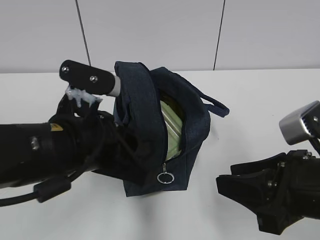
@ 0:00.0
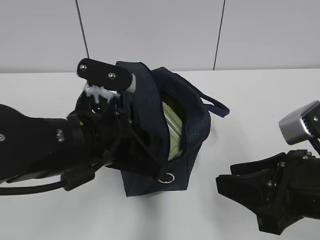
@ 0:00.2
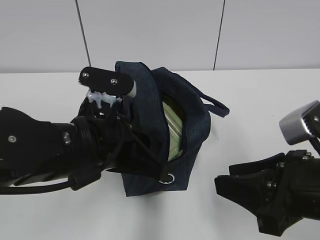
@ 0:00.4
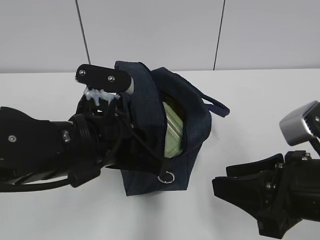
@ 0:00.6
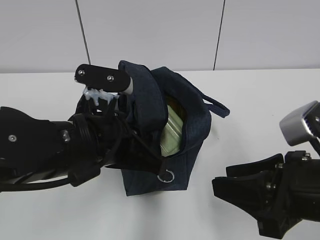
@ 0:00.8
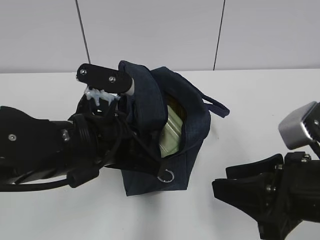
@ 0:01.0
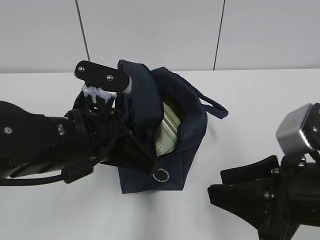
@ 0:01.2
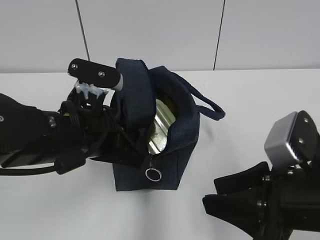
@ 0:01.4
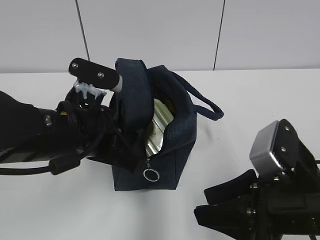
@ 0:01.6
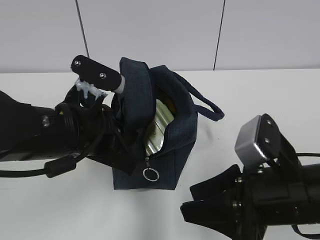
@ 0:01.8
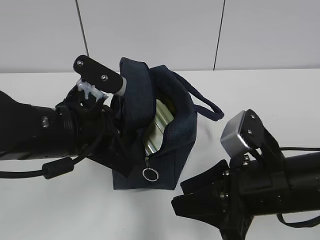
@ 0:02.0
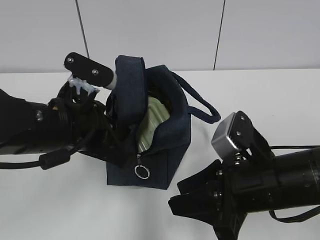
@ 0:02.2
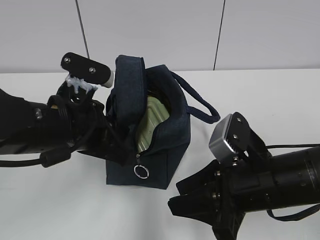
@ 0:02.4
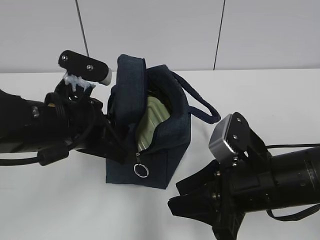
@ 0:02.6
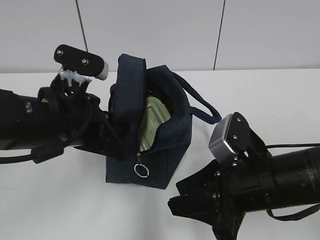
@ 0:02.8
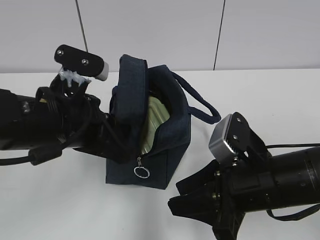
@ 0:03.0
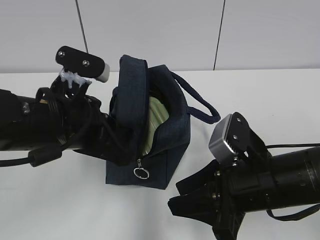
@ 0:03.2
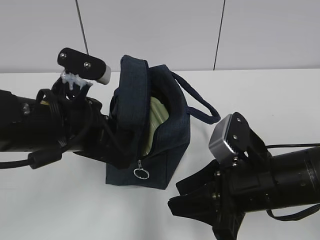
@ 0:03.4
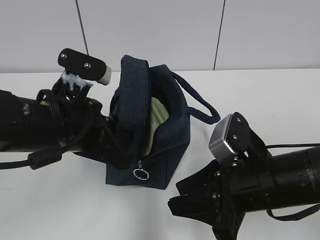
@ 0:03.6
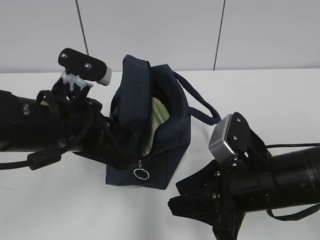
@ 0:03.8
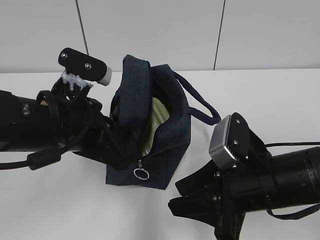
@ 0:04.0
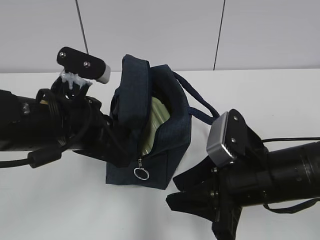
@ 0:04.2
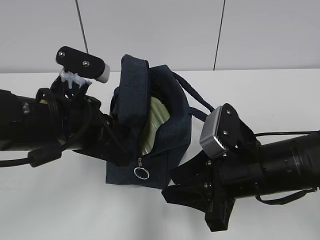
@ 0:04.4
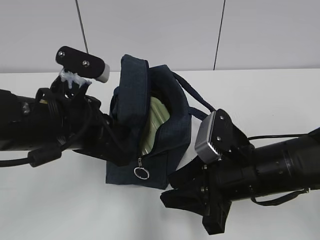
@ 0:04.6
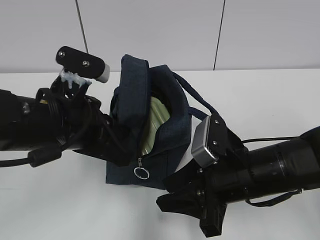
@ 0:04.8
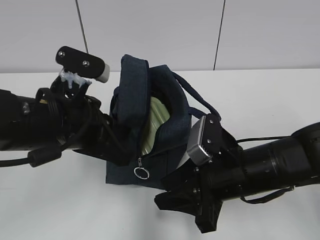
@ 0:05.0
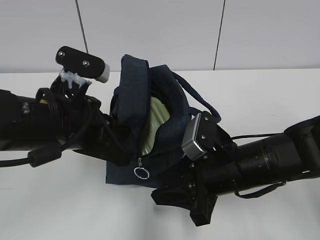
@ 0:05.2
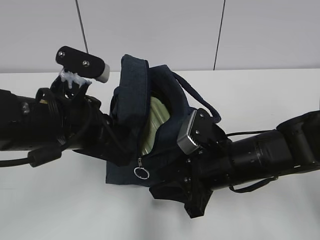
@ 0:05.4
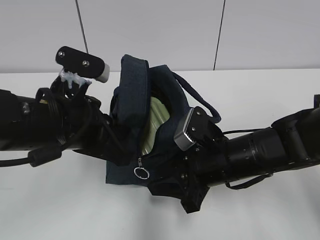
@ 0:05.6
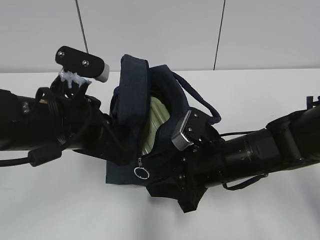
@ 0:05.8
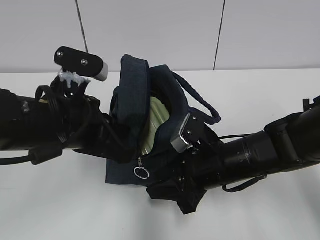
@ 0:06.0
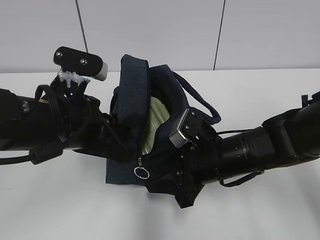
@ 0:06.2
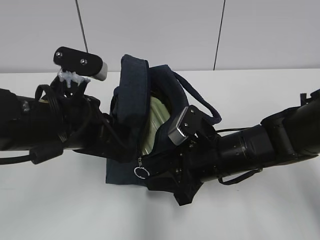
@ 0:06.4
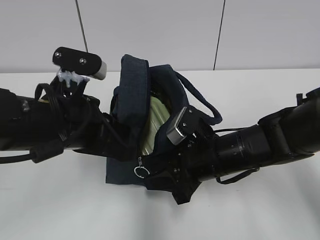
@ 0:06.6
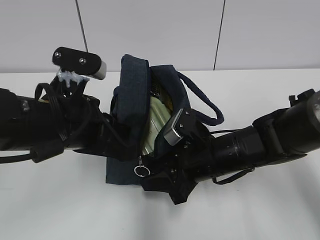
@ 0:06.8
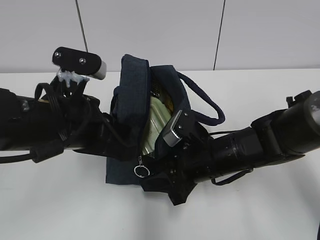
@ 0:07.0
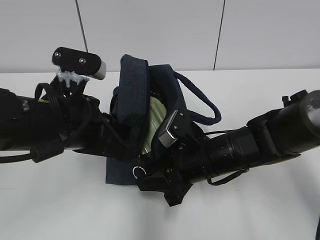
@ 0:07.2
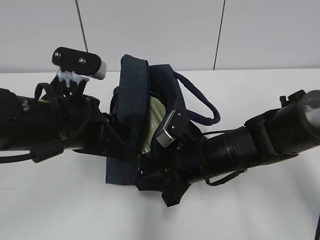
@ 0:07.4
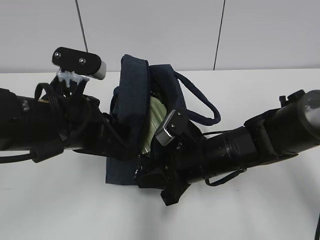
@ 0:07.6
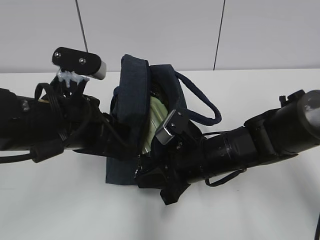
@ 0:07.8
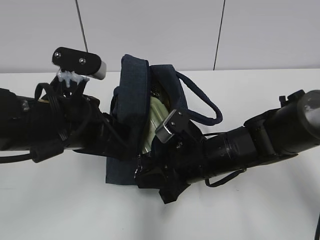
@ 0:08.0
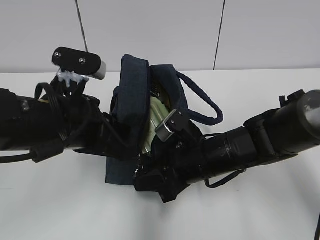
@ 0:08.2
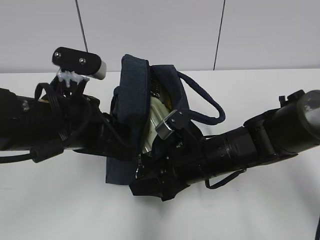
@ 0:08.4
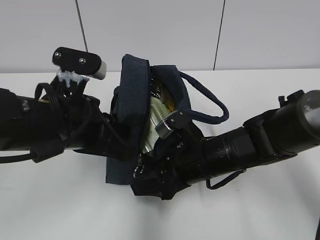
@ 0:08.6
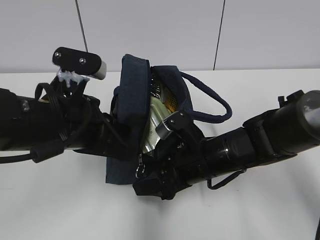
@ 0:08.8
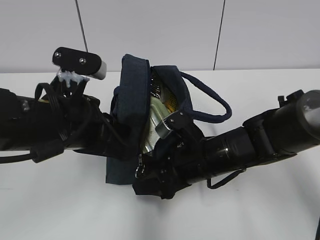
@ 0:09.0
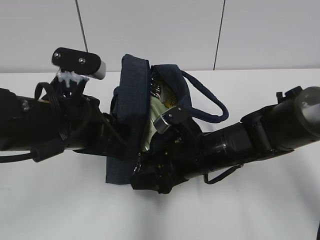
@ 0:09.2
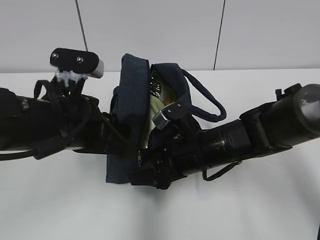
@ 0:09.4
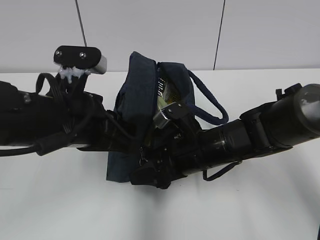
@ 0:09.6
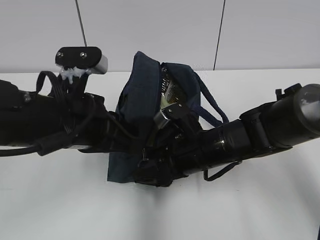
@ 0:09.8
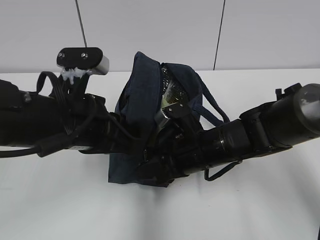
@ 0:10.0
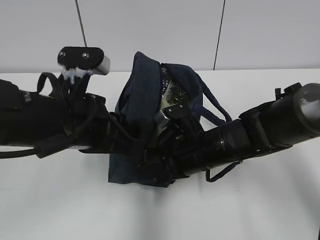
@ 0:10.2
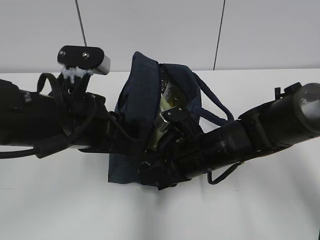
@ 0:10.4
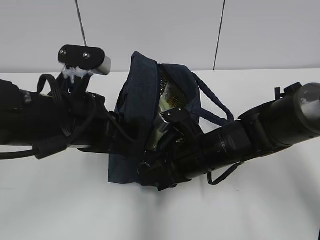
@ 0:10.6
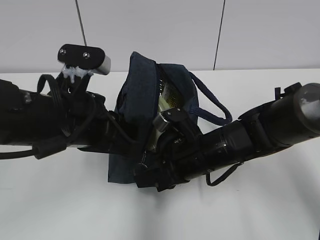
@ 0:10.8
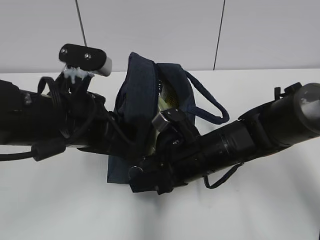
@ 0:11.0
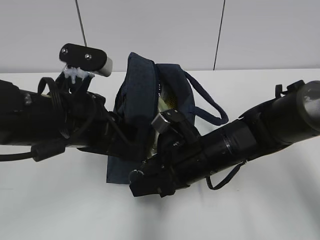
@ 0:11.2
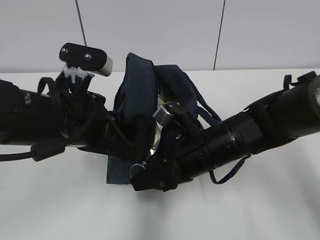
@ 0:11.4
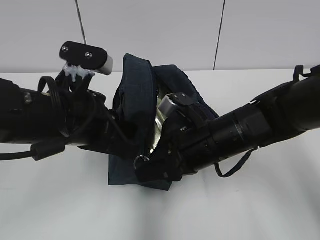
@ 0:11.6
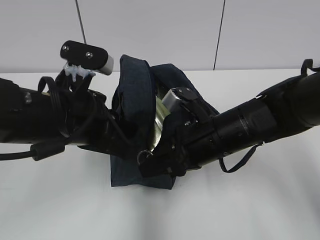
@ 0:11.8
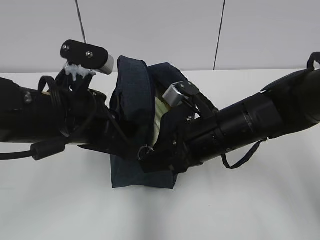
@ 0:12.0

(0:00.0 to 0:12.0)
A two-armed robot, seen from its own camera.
0:00.0 - 0:01.6: The left gripper closes its fingers.
0:01.6 - 0:03.0: The right gripper ends up approximately 5 cm from where it was.
0:03.0 - 0:04.4: There are only small adjustments of the grippers.
0:04.4 - 0:06.0: The right gripper heads forward and downward, covering roughly 5 cm.
0:06.0 - 0:07.6: The right gripper closes its fingers.
0:07.6 - 0:09.0: The right gripper opens.
0:09.0 - 0:10.4: The right gripper closes.
0:10.4 - 0:12.0: The right gripper shifts roughly 5 cm upward.

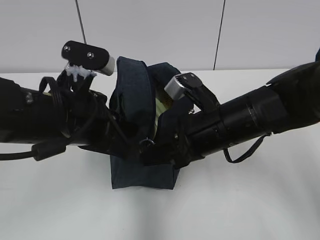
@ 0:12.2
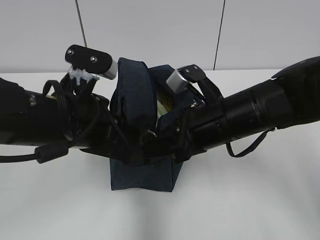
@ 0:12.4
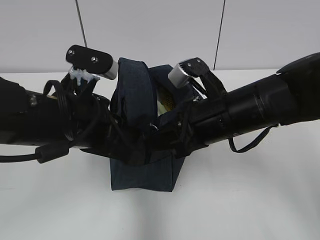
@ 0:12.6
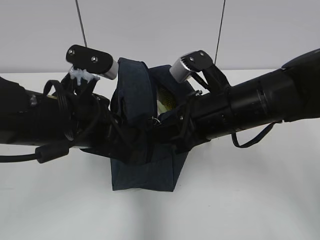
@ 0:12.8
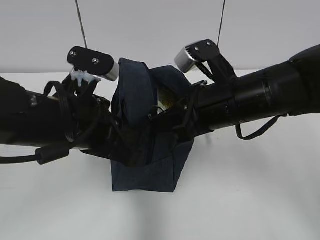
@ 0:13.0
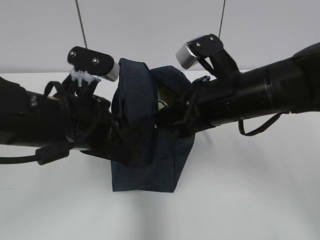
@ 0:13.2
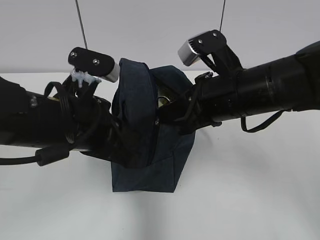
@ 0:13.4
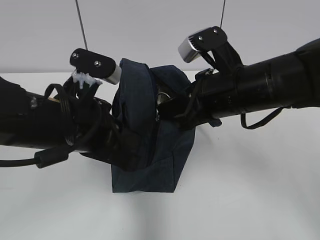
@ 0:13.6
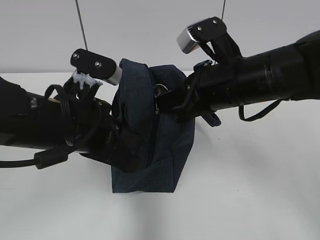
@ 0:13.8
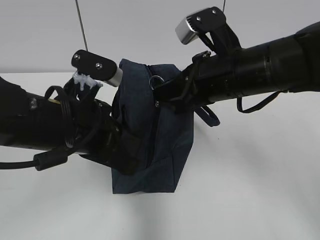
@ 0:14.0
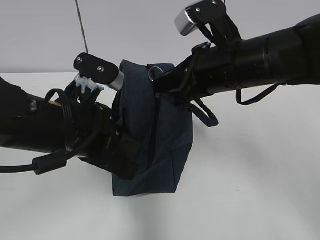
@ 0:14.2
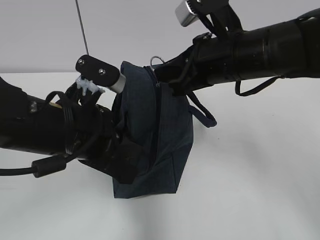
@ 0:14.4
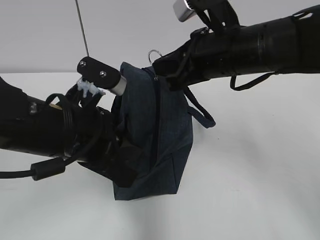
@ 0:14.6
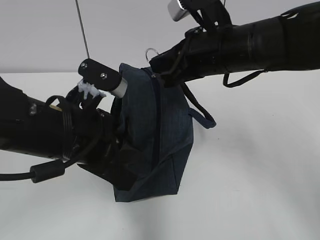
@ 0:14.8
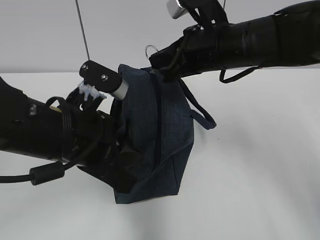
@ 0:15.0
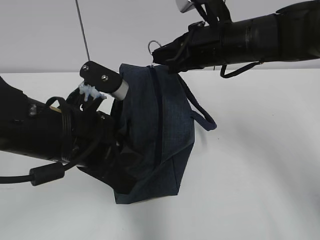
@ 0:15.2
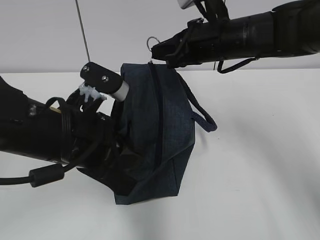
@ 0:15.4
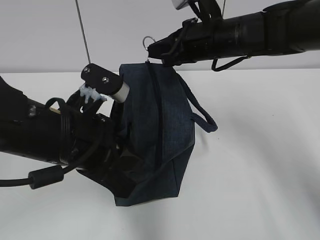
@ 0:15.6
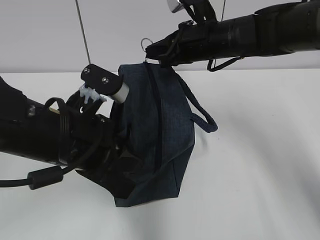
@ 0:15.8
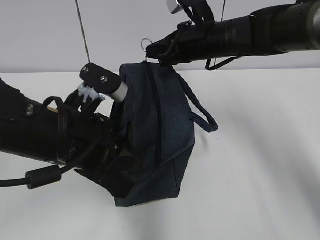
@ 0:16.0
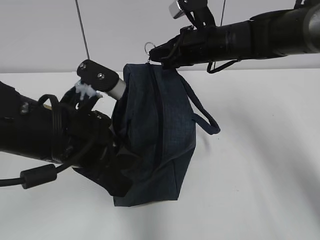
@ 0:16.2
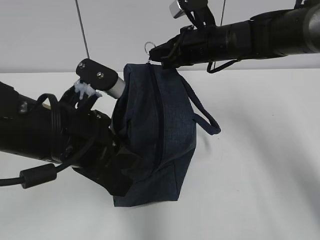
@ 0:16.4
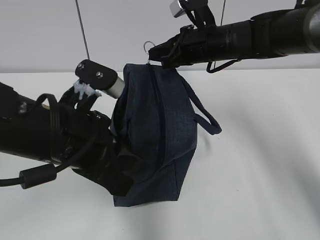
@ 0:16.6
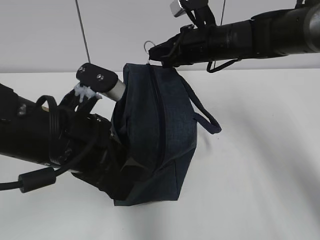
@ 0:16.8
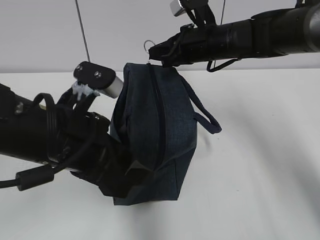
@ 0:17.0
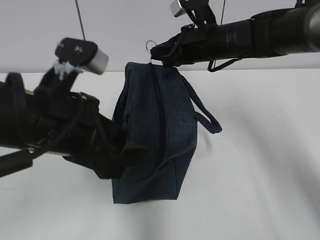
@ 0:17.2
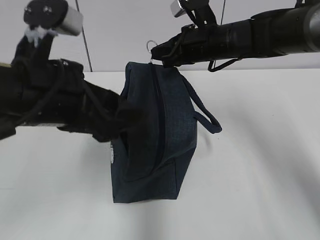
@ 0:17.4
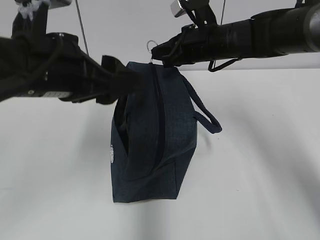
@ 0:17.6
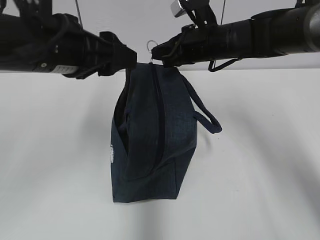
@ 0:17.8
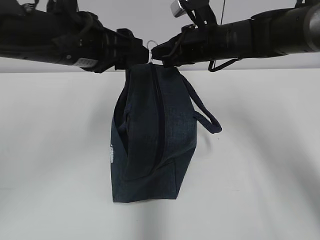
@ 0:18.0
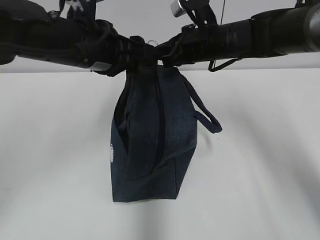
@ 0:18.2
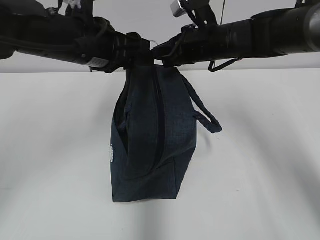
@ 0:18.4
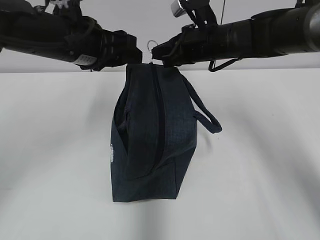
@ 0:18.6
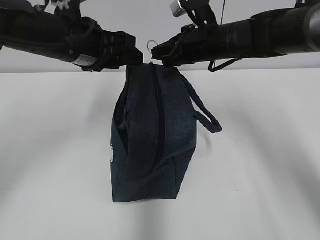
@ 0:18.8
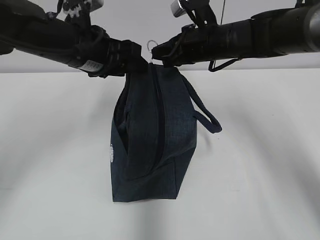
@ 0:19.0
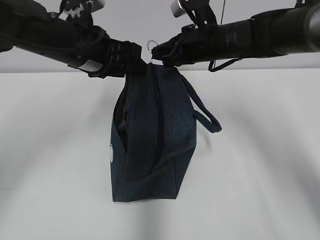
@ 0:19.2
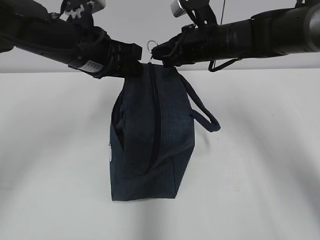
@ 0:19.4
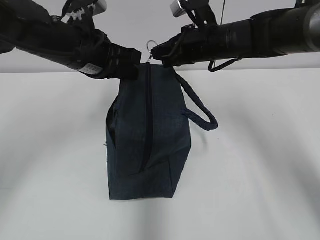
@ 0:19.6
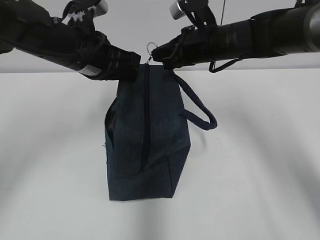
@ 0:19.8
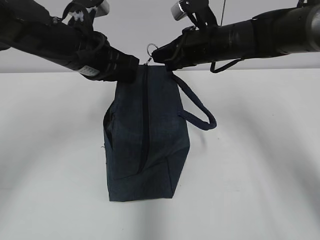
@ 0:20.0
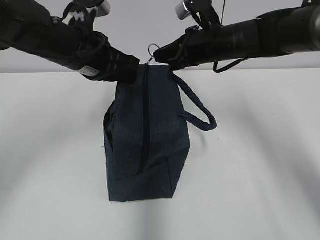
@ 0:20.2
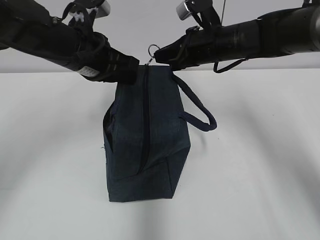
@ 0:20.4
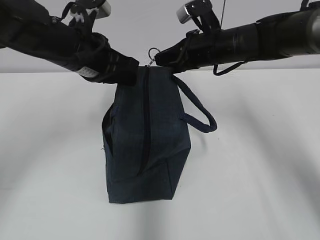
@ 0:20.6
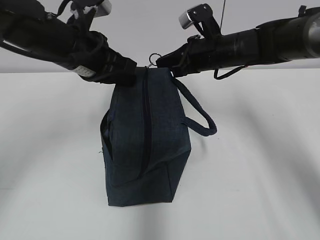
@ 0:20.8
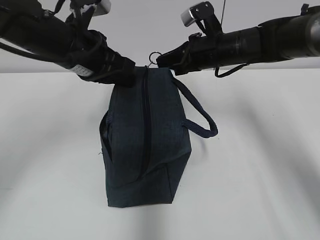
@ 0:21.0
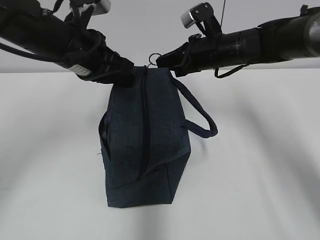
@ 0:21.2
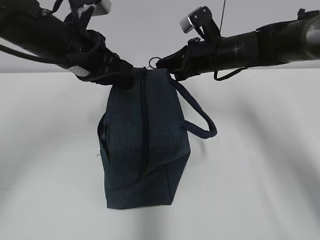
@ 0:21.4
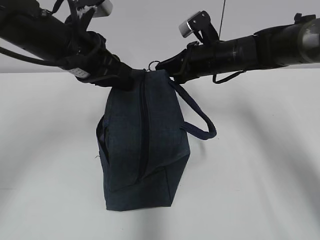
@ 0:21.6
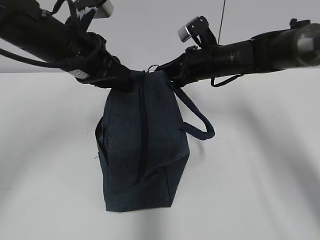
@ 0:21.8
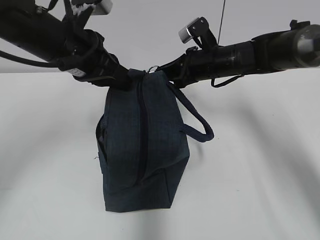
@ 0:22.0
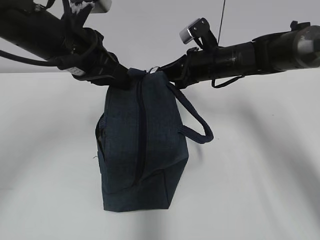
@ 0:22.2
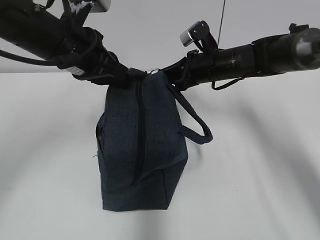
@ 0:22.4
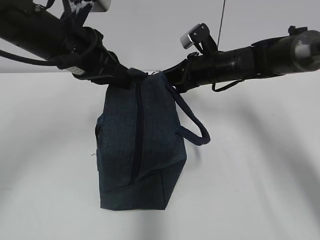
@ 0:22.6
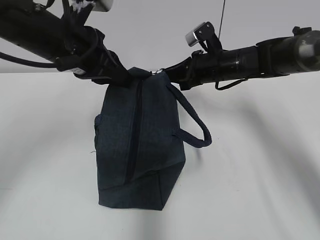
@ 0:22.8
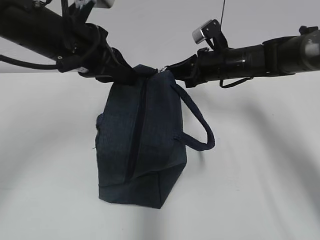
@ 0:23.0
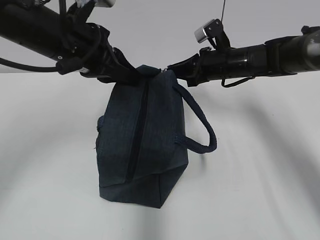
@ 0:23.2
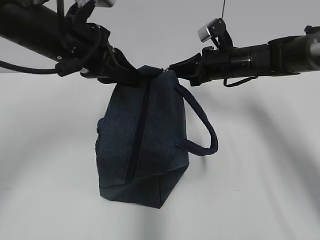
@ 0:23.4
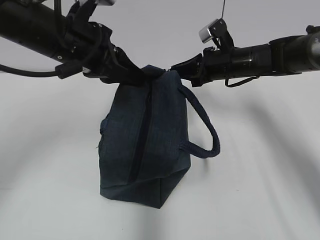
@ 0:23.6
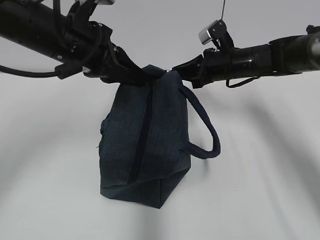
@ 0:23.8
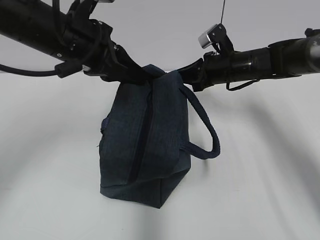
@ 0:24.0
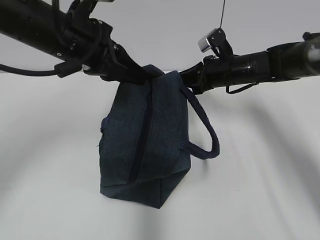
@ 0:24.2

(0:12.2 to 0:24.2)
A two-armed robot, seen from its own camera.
0:12.2 - 0:13.8: The right gripper is displaced upward by approximately 5 cm.
0:13.8 - 0:15.2: The right gripper heads forward, covering roughly 10 cm.
0:15.2 - 0:16.6: The right gripper travels forward by about 5 cm.
0:16.6 - 0:18.2: The left gripper goes approximately 15 cm forward and upward, and opens its fingers.
0:18.2 - 0:19.8: The left gripper closes its fingers.
0:19.8 - 0:21.2: There are only small adjustments of the grippers.
0:21.2 - 0:22.6: The grippers stay close to where they were, moving slightly.
0:22.6 - 0:24.2: The grippers make only small movements.
